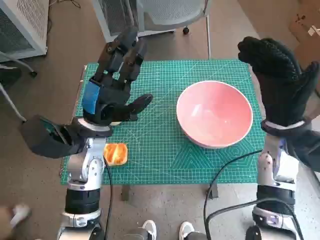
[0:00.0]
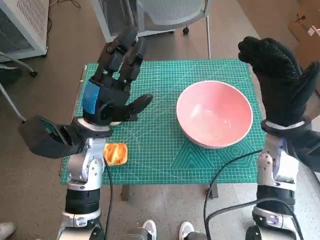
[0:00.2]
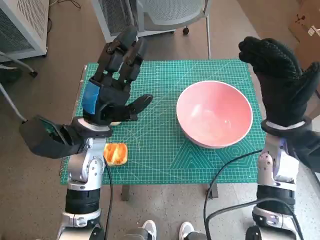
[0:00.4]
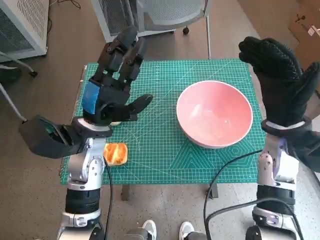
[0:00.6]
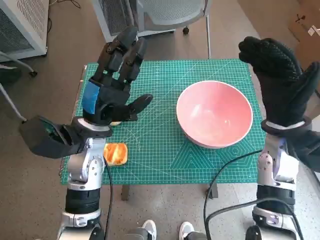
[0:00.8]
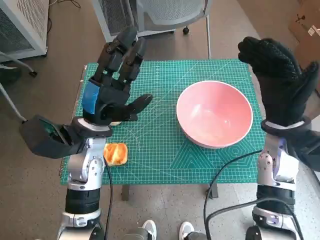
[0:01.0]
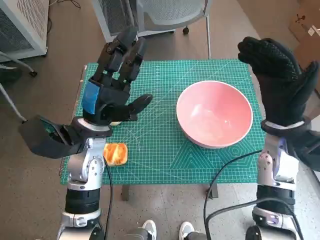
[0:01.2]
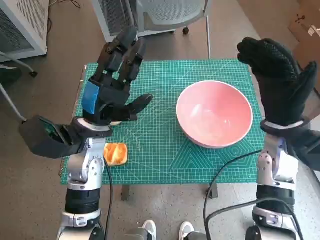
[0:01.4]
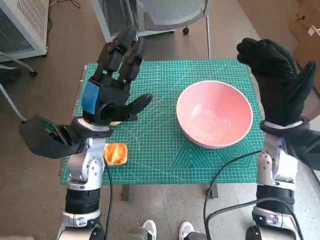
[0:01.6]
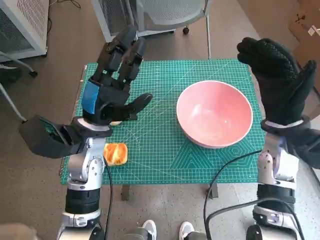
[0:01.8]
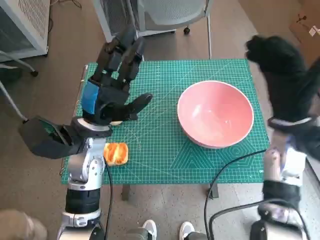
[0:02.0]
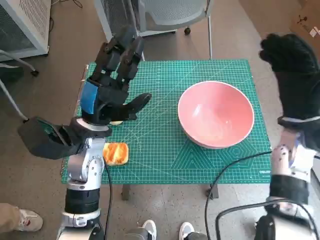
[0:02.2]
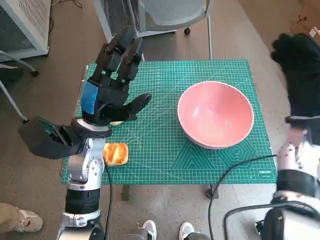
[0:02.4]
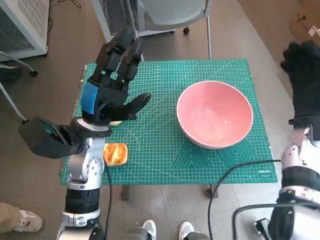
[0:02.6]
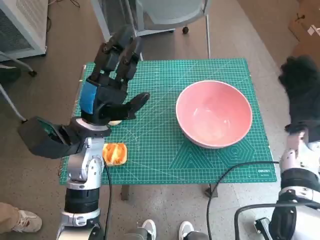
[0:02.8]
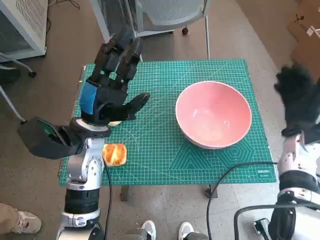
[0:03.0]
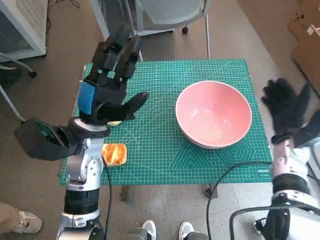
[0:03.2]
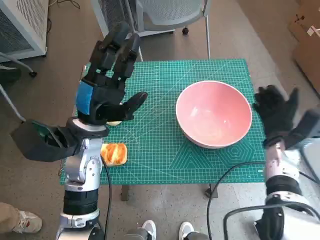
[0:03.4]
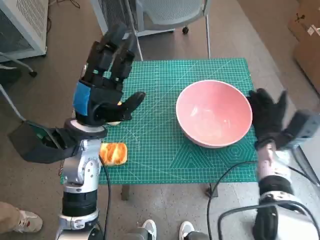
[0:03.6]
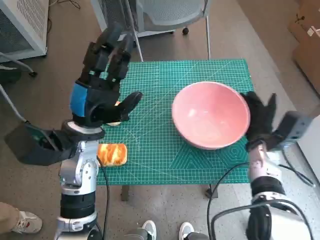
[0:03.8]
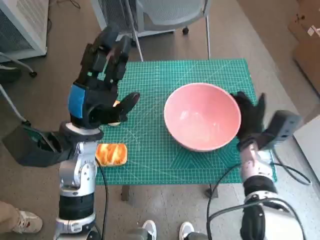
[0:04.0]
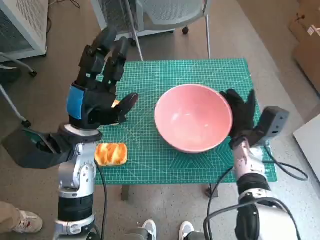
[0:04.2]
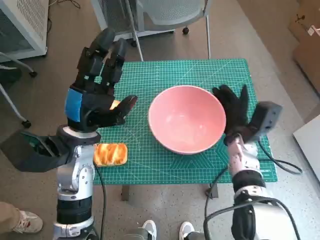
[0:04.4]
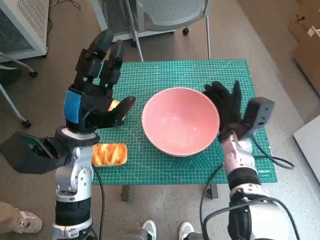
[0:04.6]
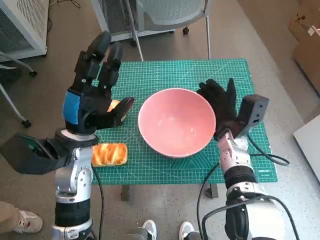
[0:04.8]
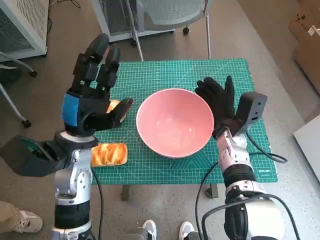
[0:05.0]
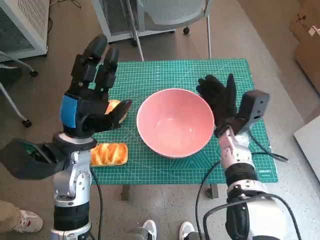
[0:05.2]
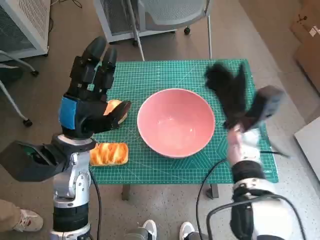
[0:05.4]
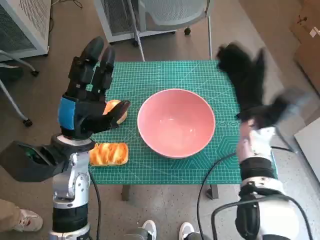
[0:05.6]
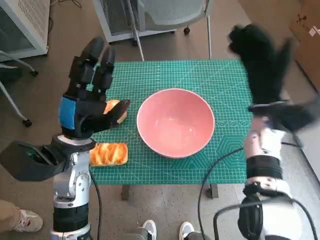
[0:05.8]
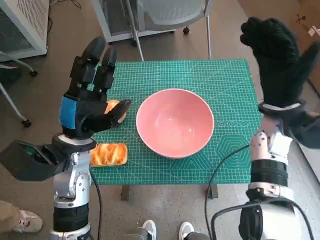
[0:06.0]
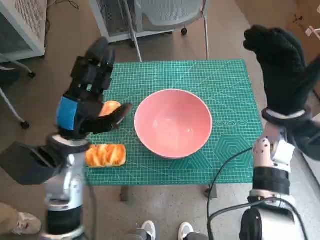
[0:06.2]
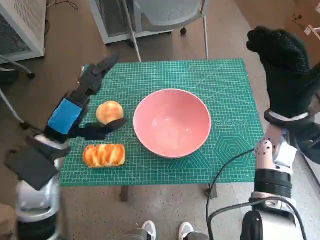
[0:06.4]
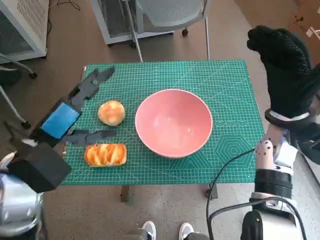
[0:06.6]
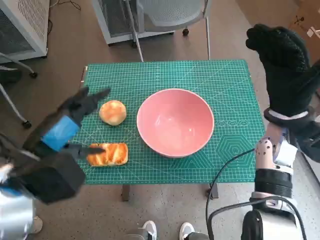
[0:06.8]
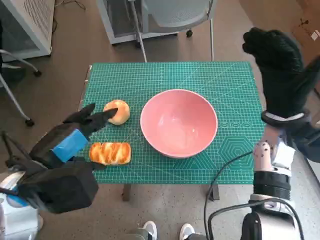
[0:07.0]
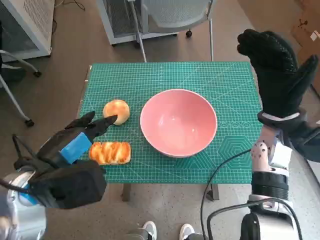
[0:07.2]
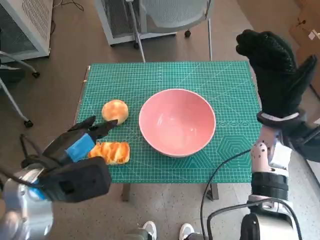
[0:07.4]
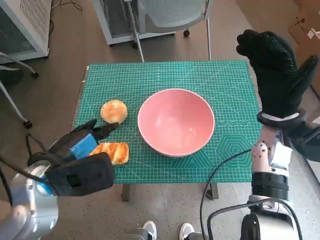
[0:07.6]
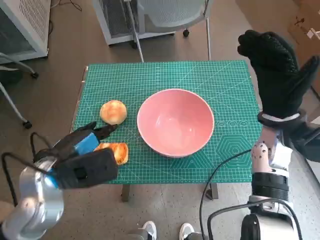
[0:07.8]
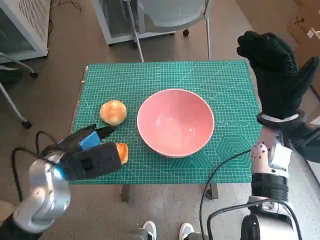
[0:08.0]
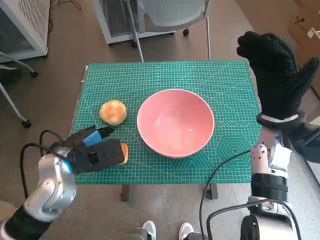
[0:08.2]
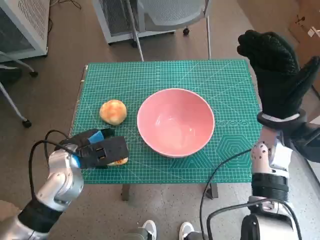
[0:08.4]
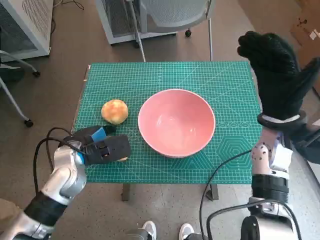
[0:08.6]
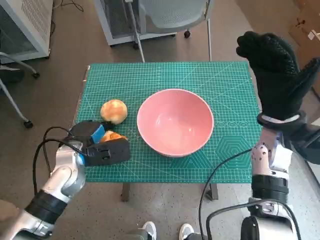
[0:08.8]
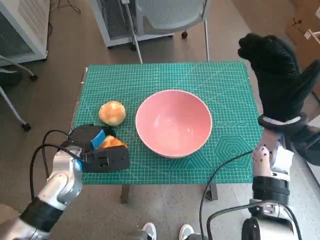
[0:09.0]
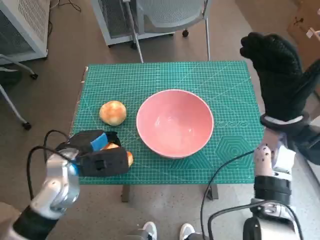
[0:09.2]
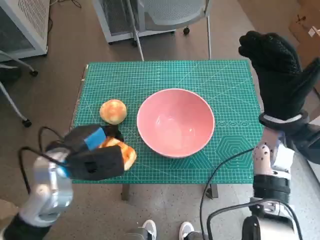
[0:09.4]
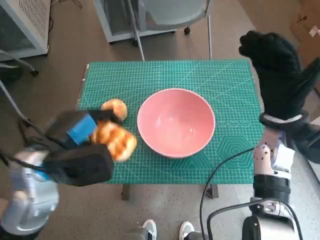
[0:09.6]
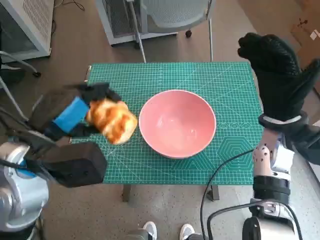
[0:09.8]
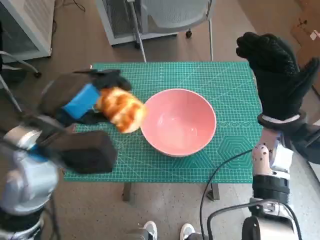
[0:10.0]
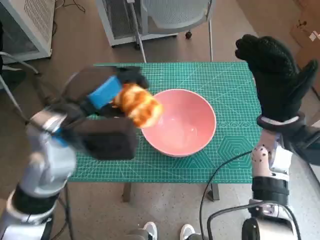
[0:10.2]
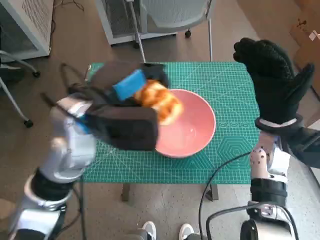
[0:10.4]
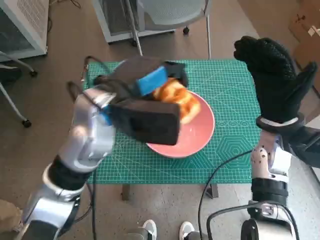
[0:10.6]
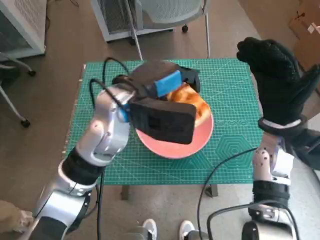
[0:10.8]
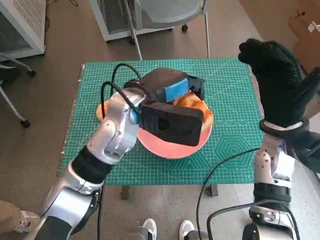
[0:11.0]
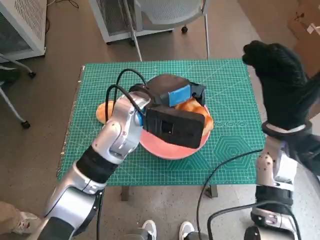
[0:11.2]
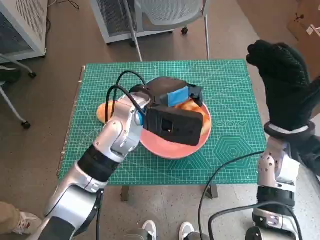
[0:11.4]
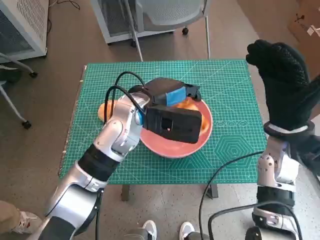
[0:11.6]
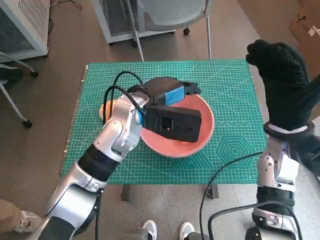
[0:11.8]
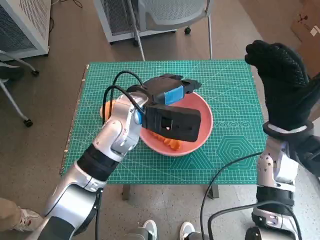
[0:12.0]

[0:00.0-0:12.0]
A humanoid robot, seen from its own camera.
Step, 0:00.0 to 0:05.2: Move the pink bowl to the center of table with right hand.
Step, 0:05.4 to 0:08.6: Grasp the long bread with left hand.
0:01.6 to 0:03.0: The right hand travels to the right and downward by about 10 cm.
0:03.0 to 0:04.4: The right hand moves to the left, some 10 cm.
0:04.4 to 0:06.0: The right hand moves upward, roughly 10 cm.
0:06.0 to 0:07.6: The left hand travels backward by roughly 5 cm.
0:07.6 to 0:09.0: The left hand goes about 10 cm downward and forward.
0:09.0 to 0:10.4: The left hand heads upward and to the right, covering about 15 cm.
0:10.4 to 0:12.0: The left hand goes about 10 cm to the right, forward and downward.

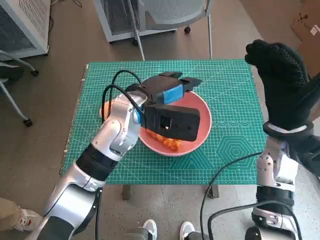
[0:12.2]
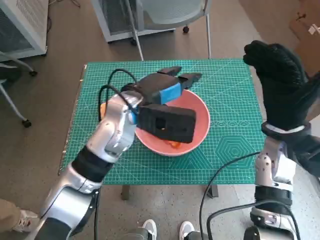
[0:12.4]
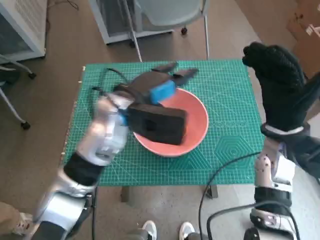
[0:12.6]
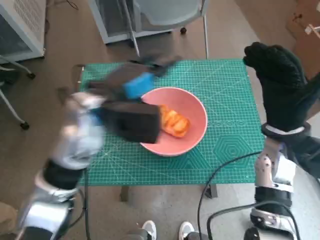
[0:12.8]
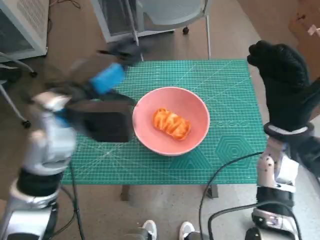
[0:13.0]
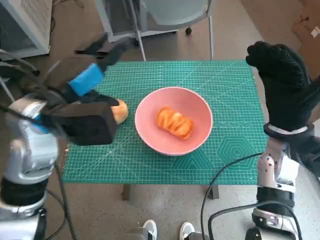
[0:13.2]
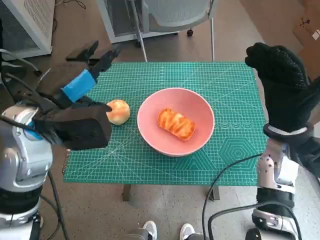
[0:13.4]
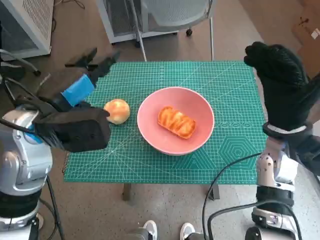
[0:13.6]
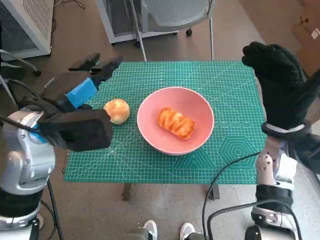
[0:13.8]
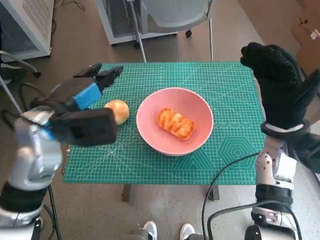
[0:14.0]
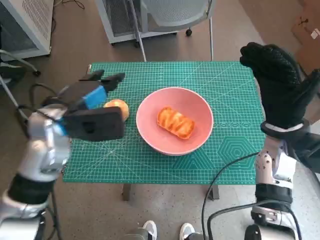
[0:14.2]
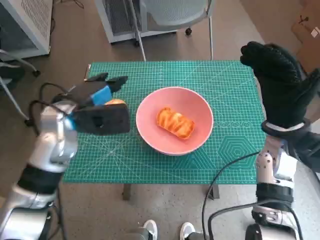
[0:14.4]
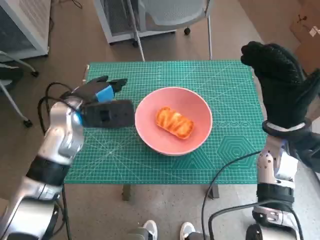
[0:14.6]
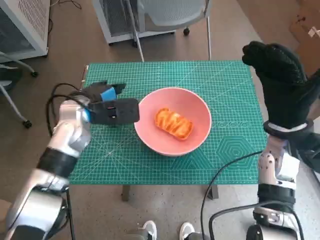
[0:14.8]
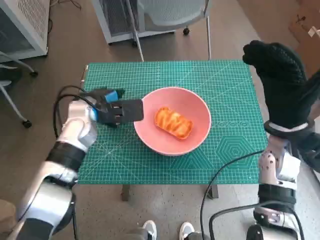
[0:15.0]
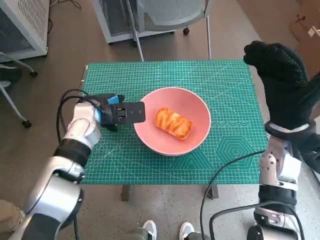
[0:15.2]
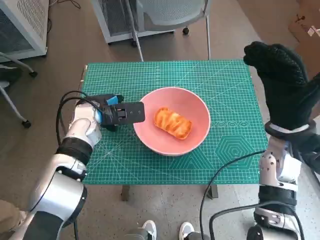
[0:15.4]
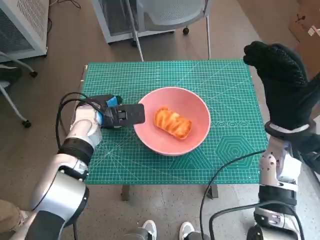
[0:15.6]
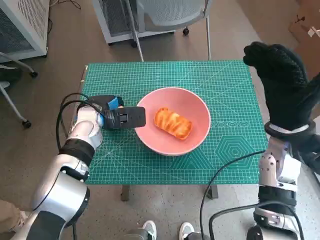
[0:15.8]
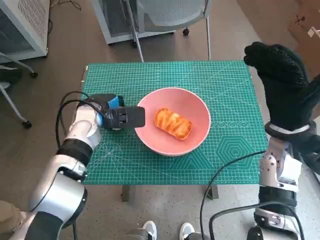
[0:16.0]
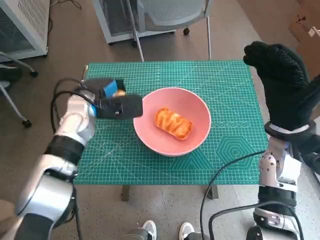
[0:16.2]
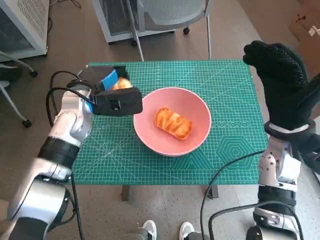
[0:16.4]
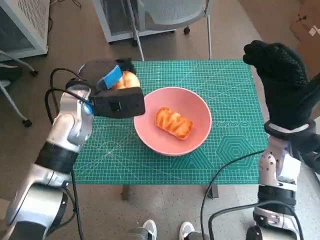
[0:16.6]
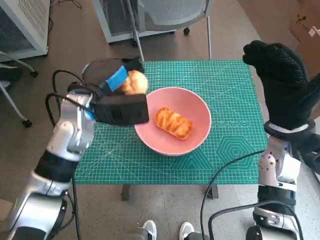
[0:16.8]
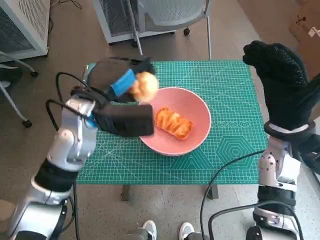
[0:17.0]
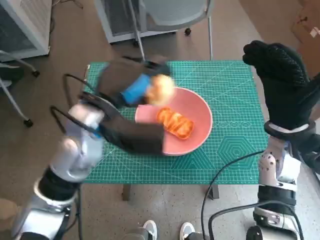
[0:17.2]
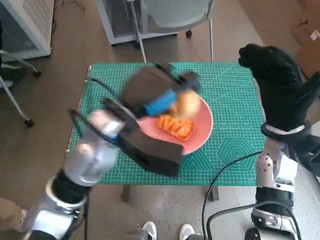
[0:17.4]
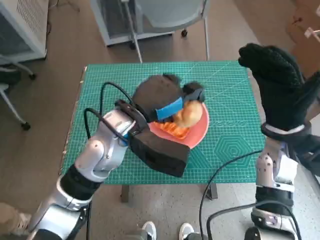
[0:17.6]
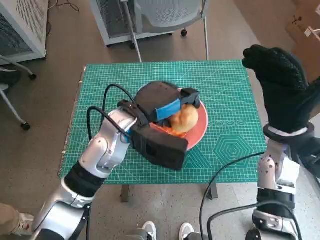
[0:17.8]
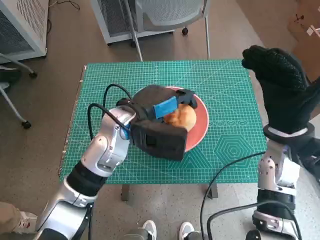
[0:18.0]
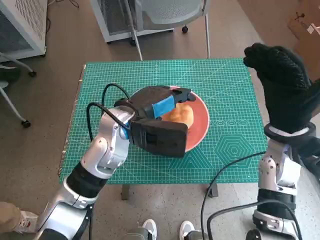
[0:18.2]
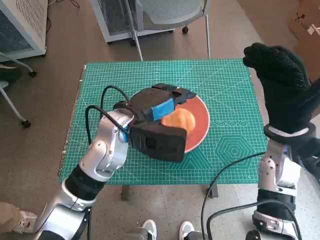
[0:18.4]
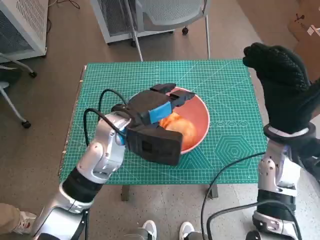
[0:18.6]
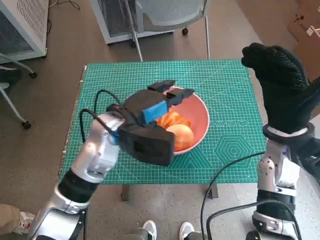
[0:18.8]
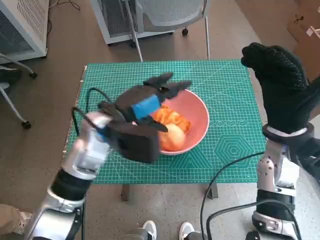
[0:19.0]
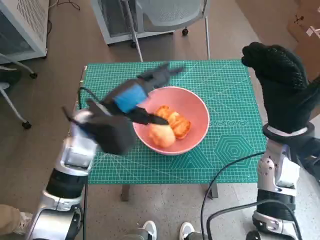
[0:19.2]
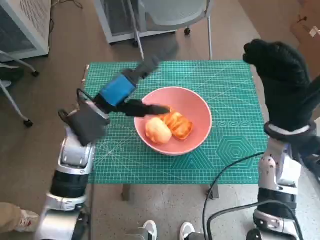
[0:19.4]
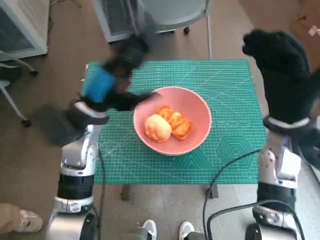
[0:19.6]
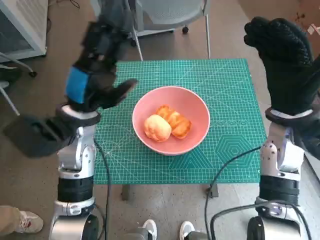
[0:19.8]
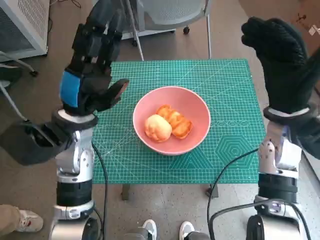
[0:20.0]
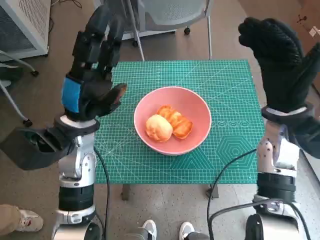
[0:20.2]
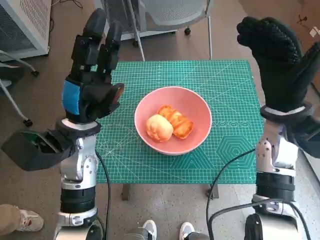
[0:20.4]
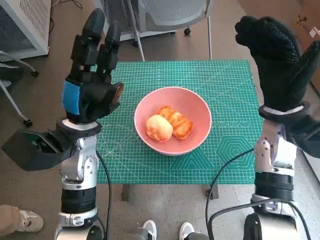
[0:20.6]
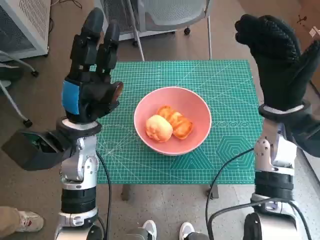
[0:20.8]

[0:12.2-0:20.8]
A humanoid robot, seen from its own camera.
Step, 0:12.2 to 0:15.8: Grasp the round bread with left hand.
Step, 0:16.0 to 0:18.6: Place the round bread in pink bowl with left hand.
0:12.2 to 0:13.6: The left hand travels to the left and backward by roughly 15 cm.
0:13.6 to 0:15.0: The left hand heads downward and forward, covering about 15 cm.
0:16.6 to 0:18.0: The left hand moves to the right, roughly 10 cm.
0:18.0 to 0:19.4: The left hand shifts some 5 cm to the left.
